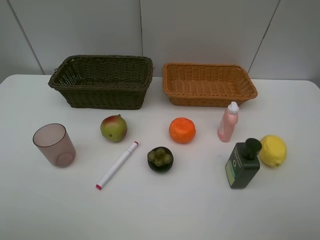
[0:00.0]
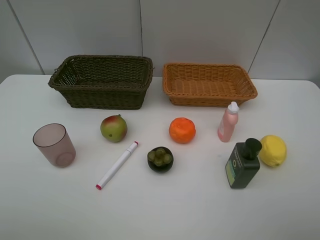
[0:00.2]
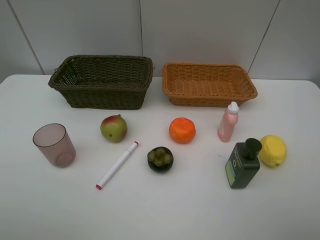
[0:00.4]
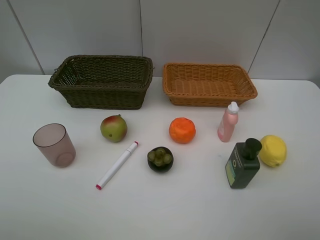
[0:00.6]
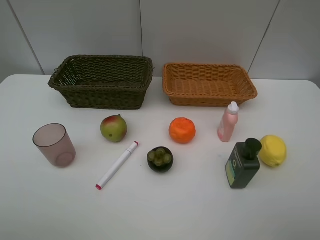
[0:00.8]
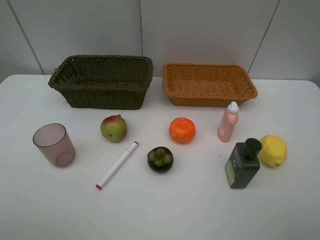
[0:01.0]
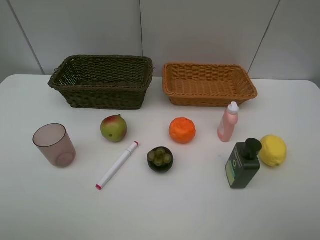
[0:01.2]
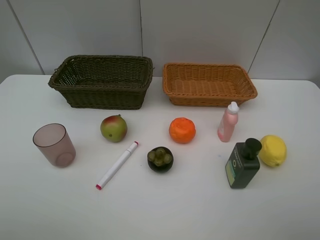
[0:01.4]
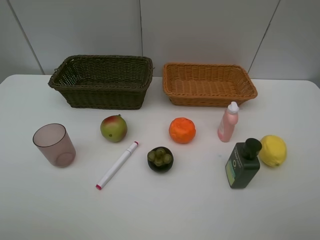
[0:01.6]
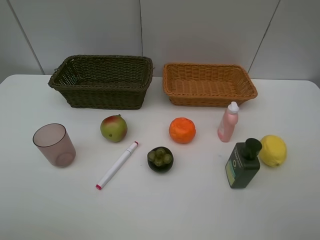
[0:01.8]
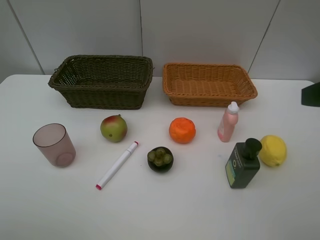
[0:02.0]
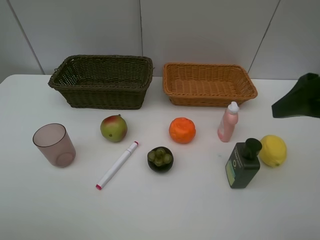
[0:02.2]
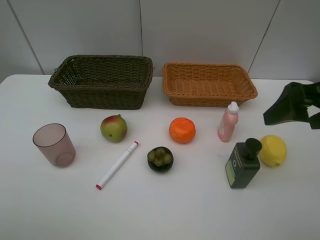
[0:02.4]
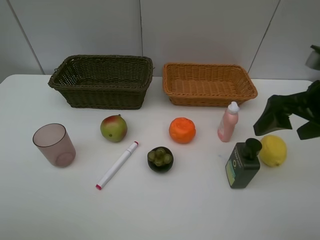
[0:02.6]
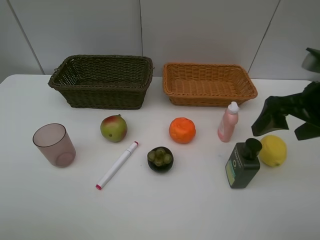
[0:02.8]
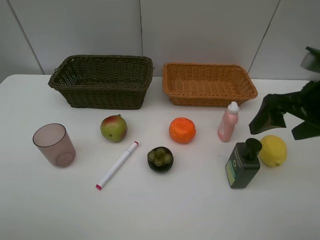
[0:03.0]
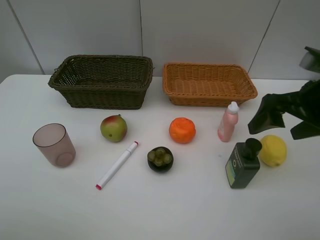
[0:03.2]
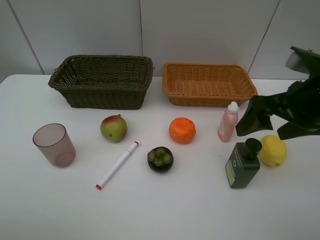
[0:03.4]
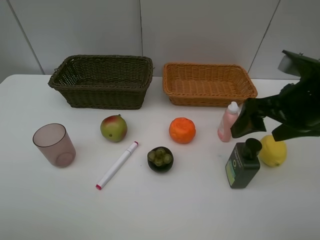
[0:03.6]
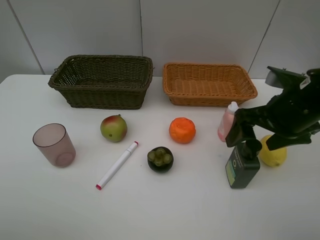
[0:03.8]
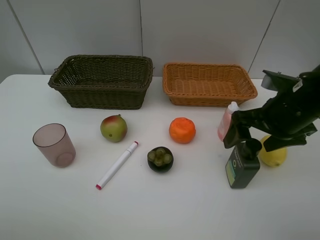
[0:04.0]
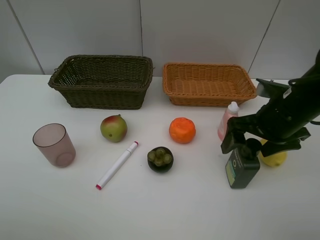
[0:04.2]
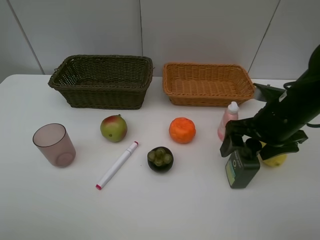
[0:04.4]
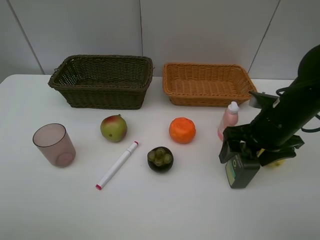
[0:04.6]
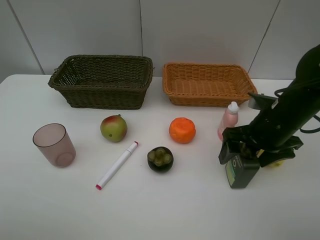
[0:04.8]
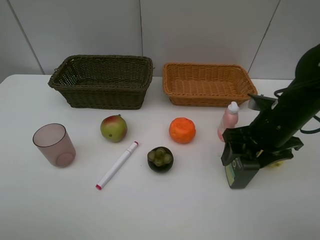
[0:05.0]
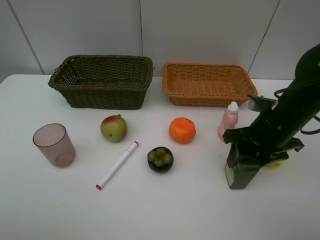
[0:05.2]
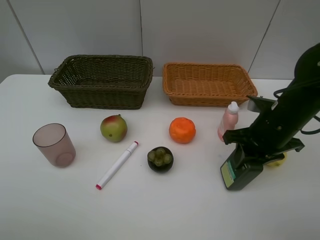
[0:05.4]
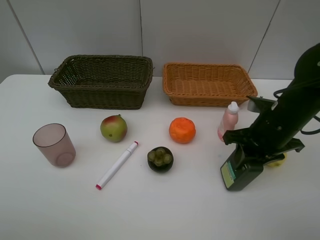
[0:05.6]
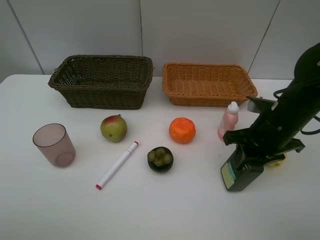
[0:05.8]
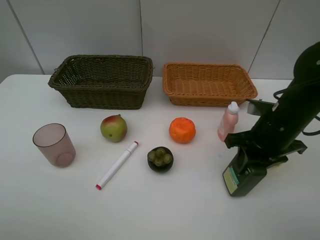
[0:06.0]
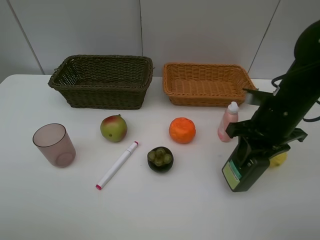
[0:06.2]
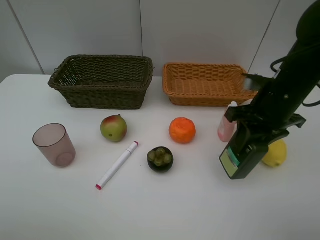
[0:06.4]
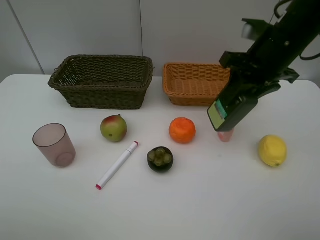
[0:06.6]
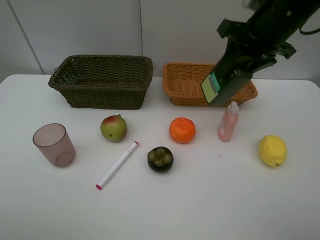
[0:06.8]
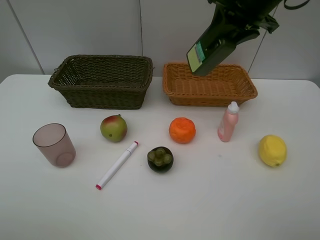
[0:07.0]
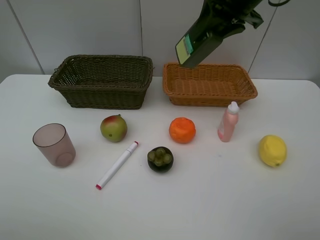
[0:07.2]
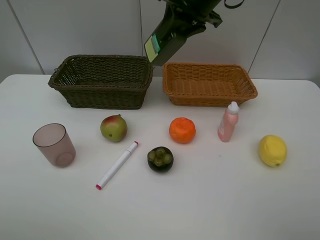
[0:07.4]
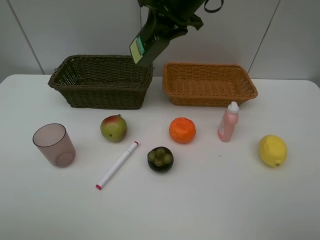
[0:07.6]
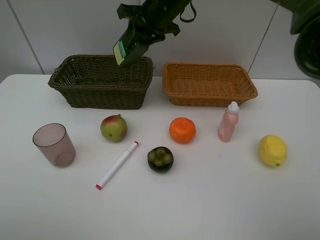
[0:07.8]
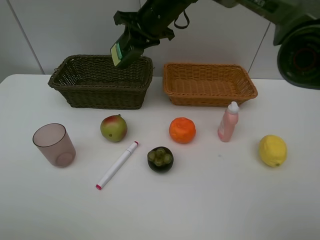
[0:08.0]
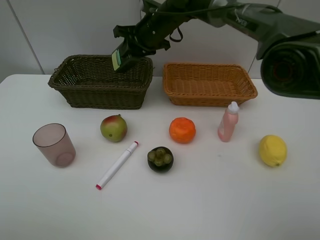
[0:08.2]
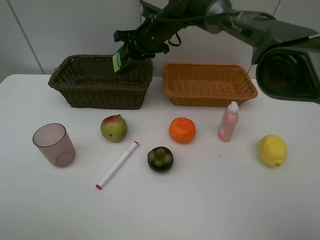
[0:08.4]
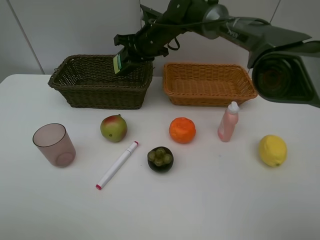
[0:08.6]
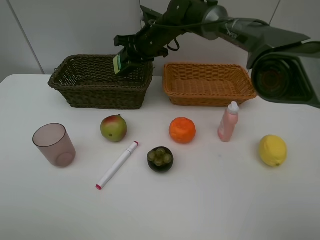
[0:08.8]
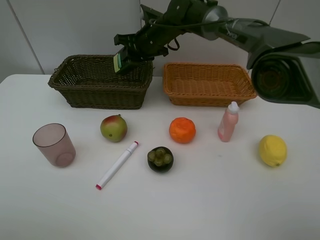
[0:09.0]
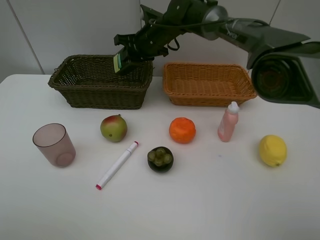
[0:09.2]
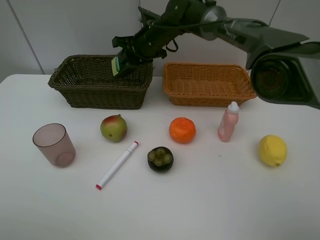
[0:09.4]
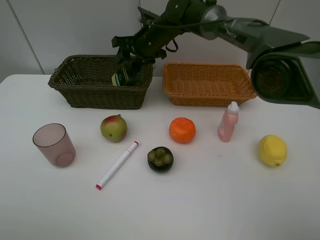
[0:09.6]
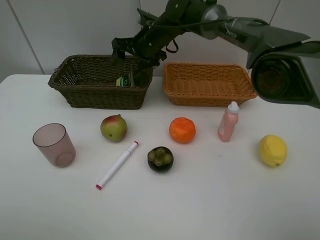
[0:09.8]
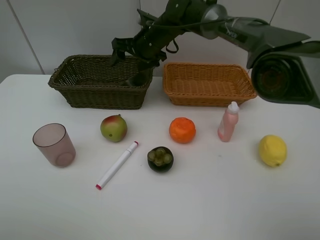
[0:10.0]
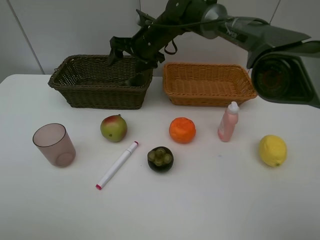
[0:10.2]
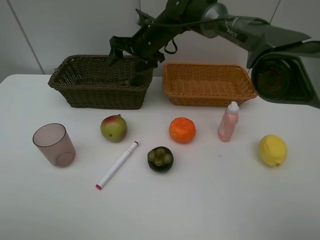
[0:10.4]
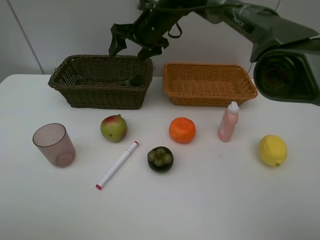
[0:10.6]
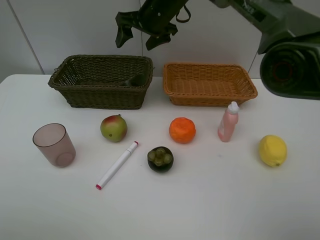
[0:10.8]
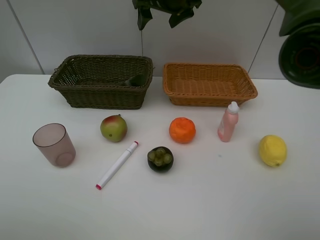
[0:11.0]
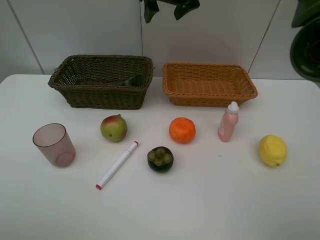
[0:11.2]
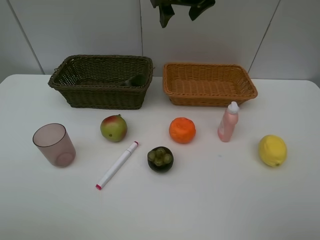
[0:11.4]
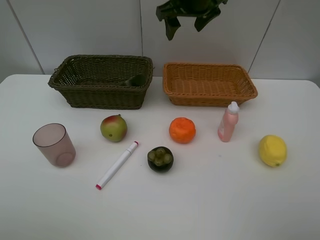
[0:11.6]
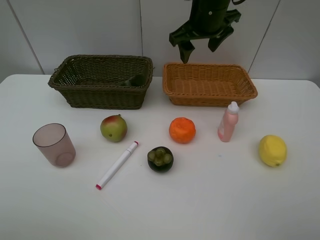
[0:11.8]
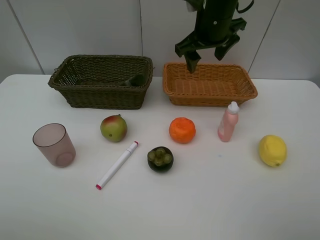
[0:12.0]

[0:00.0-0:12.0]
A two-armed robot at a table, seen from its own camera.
Task of the whole recording: Place multiple objects separately in different baskets.
Step, 0:00.0 to 0:06.2: Pick up the hard facial cleanser with right gripper.
Step, 0:06.4 to 0:10.4: Place the hard facial cleanser in the dark basket with right gripper.
0:01.6 to 0:03.0: The right gripper heads forward, covering approximately 20 cm.
0:03.0 to 0:04.4: The right gripper goes about 5 cm downward.
0:04.4 to 0:06.0: The right gripper closes its fingers.
0:06.0 to 0:07.6: The right gripper is displaced forward, to the left and upward by about 30 cm.
0:07.6 to 0:09.0: The right gripper heads downward, forward and to the left, covering roughly 15 cm.
0:09.0 to 0:10.4: The right gripper opens its fingers.
0:10.4 to 0:12.0: The right gripper heads to the right, backward and upward, covering approximately 15 cm.

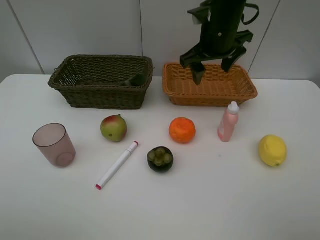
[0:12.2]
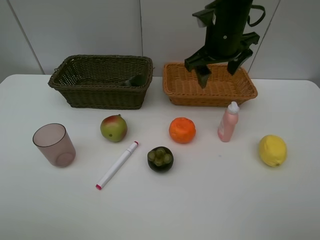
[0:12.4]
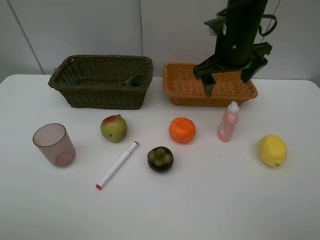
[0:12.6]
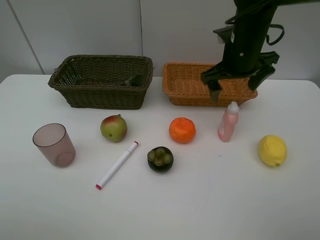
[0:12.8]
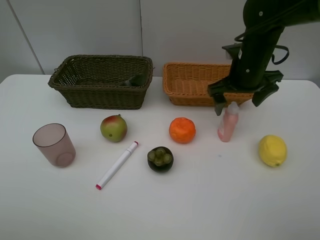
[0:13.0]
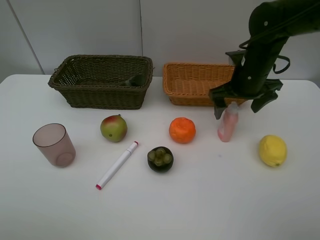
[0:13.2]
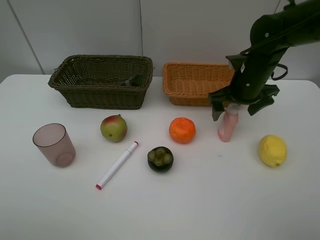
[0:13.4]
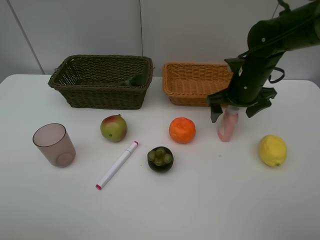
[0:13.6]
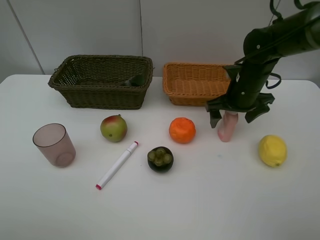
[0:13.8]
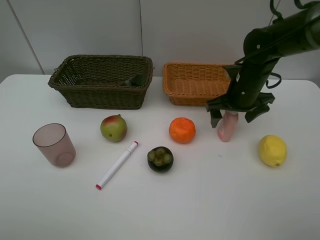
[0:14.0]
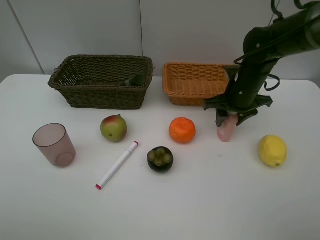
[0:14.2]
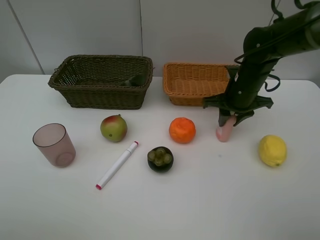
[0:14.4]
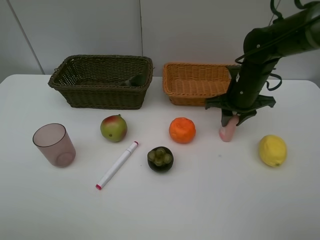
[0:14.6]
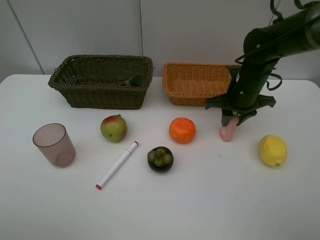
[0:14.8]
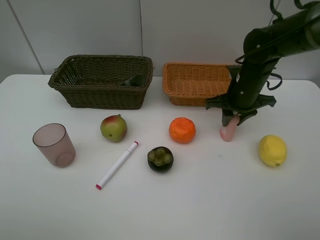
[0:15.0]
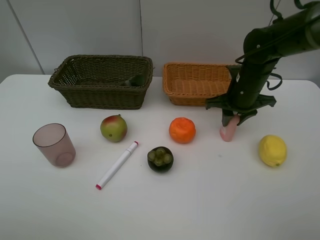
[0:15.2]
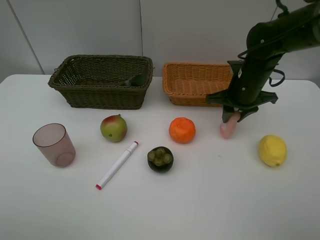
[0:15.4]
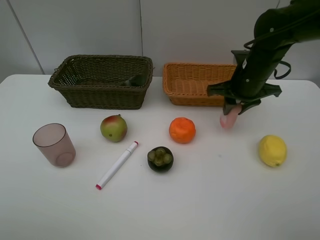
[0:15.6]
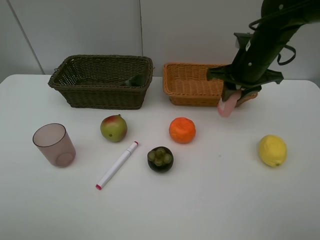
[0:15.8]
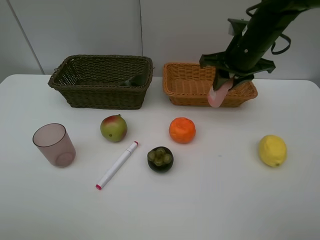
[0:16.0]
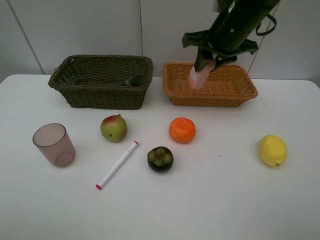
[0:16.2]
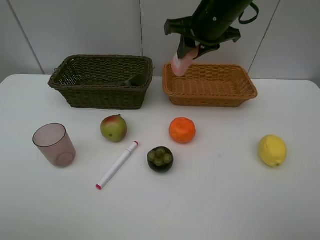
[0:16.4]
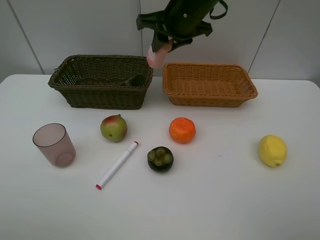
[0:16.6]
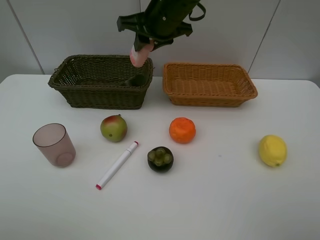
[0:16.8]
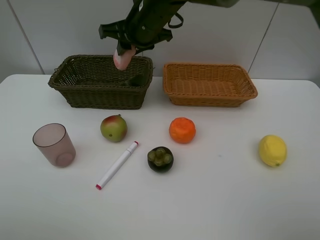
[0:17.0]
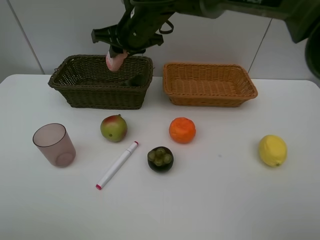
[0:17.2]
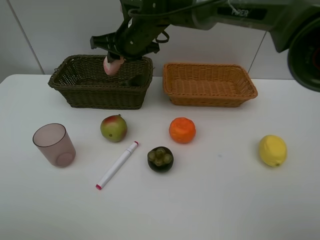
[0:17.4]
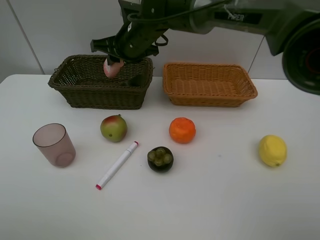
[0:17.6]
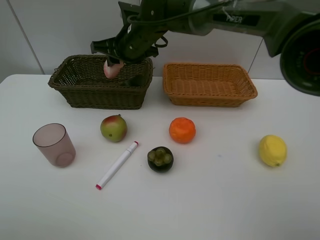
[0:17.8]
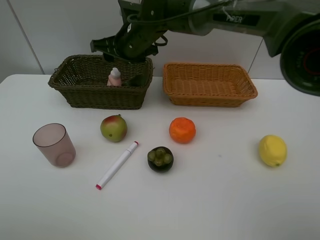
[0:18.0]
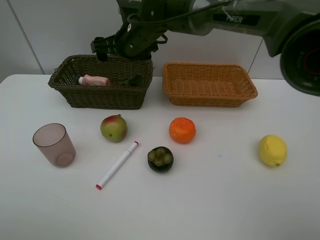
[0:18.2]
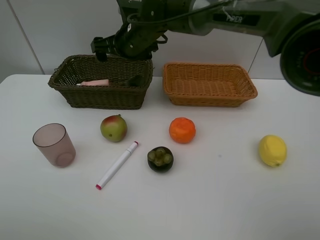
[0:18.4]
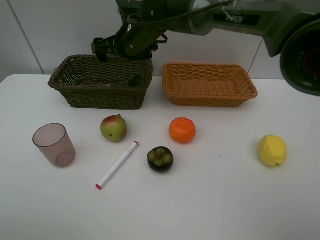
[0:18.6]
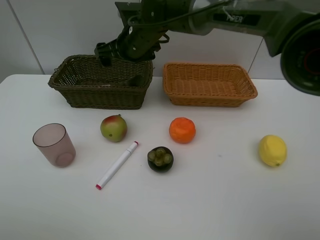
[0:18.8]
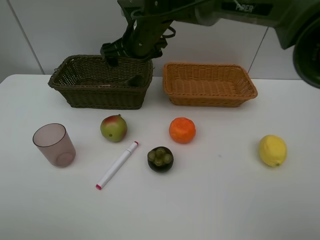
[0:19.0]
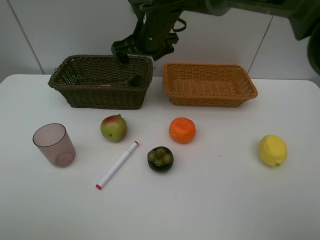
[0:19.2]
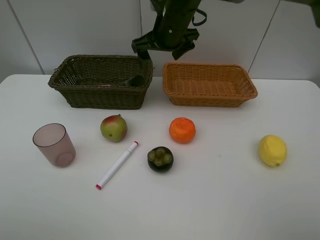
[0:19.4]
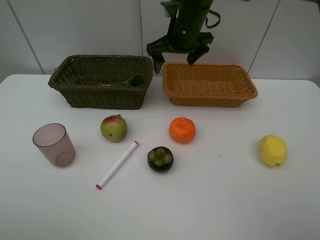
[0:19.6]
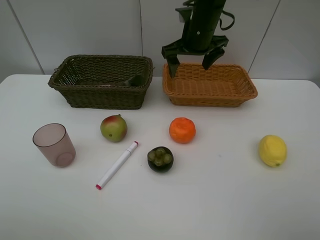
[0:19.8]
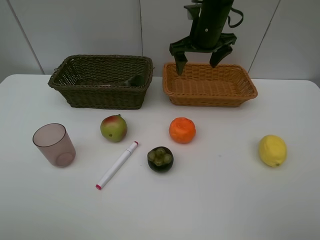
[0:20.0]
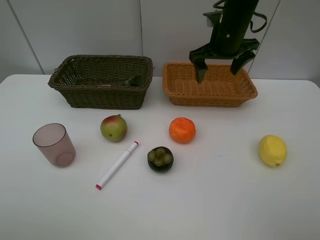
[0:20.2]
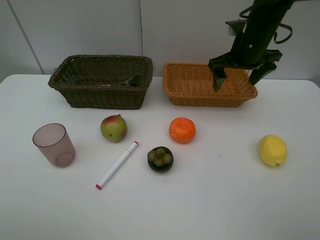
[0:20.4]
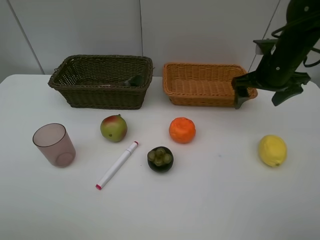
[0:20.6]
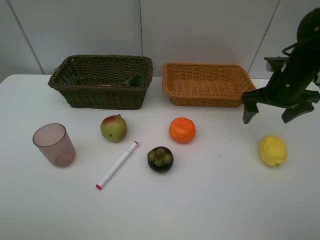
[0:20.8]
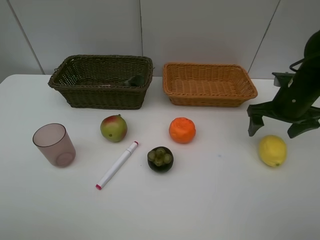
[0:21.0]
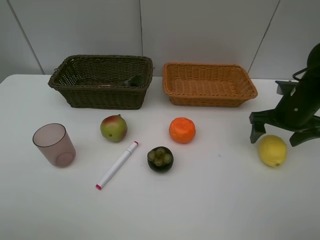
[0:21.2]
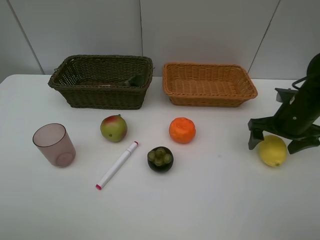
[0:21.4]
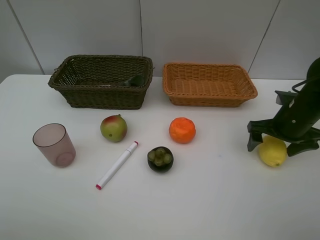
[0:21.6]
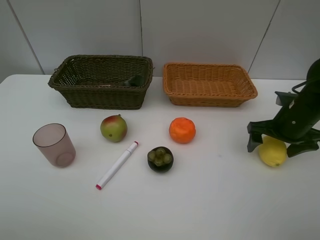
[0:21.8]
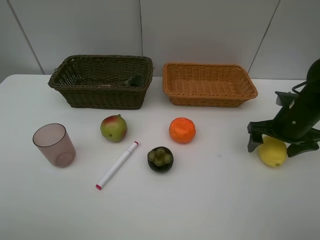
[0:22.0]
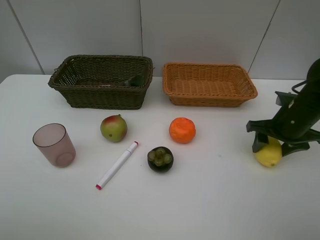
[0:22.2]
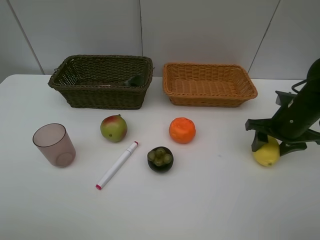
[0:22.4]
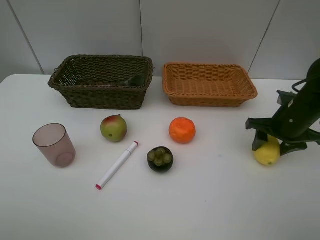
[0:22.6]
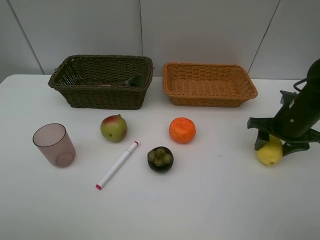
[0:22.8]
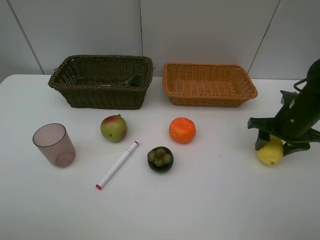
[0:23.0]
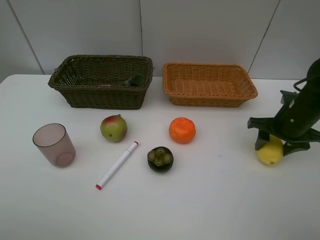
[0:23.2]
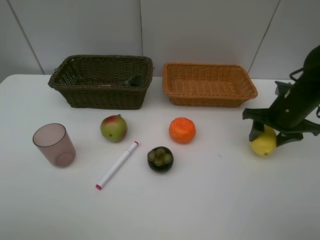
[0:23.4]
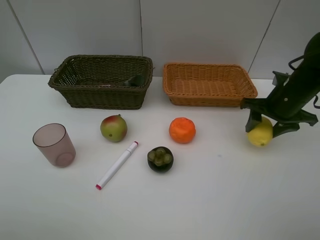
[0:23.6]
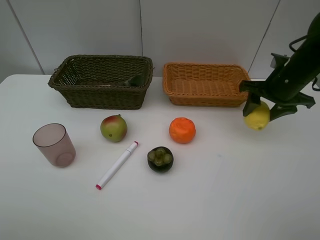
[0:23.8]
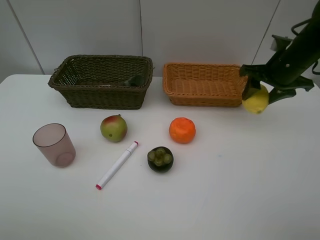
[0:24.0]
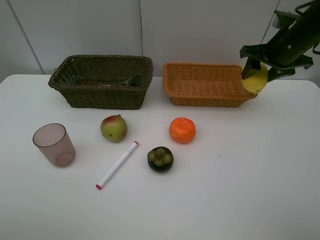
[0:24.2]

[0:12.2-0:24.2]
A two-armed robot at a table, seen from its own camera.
Task of the whole recording: Place multiple objects separately in different baskets.
Step, 0:12.2 to 0:15.6: Pick up the laundry detergent with right gripper.
Step, 0:15.8 to 0:18.2: Place the laundry detergent in the dark basket with right gripper.
Step, 0:18.4 to 0:23.6: Pick up the lemon with right gripper.
0:12.2 to 0:13.8: The right gripper goes about 15 cm downward and to the right.
0:13.8 to 0:15.2: The right gripper closes its fingers.
0:15.2 to 0:16.6: The right gripper is displaced to the left and upward by some 20 cm.
0:16.6 to 0:18.2: The right gripper heads to the left and downward, covering some 10 cm, and opens.
0:18.2 to 0:19.8: The right gripper travels to the right by some 15 cm.
0:19.8 to 0:21.2: The right gripper is displaced to the right, backward and downward by roughly 25 cm.
0:21.2 to 0:22.6: The right gripper closes up.
0:22.6 to 0:24.2: The right gripper travels upward and forward by some 15 cm.
